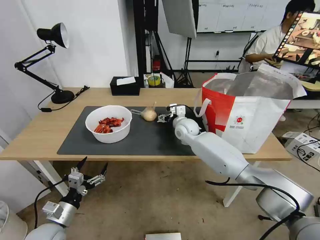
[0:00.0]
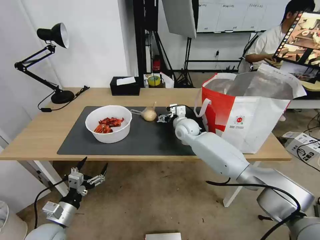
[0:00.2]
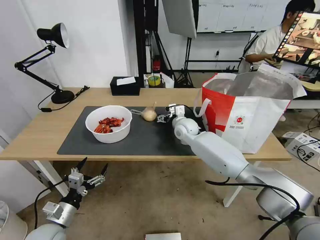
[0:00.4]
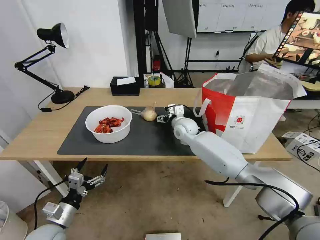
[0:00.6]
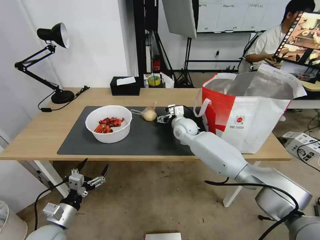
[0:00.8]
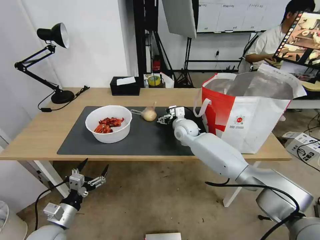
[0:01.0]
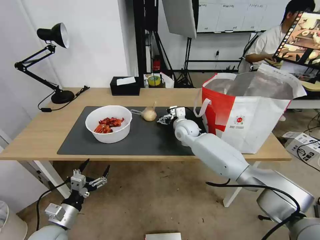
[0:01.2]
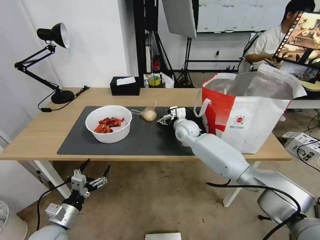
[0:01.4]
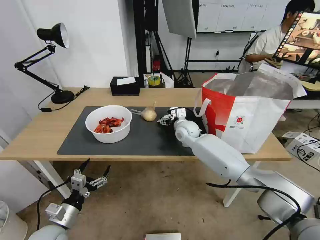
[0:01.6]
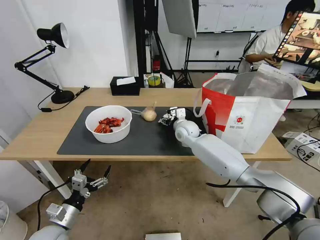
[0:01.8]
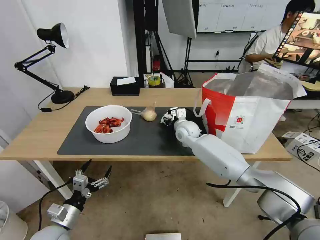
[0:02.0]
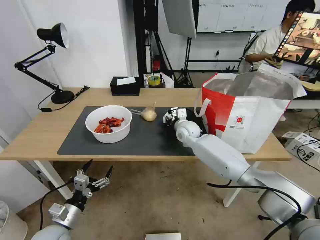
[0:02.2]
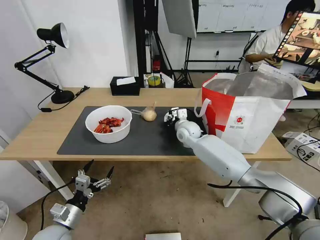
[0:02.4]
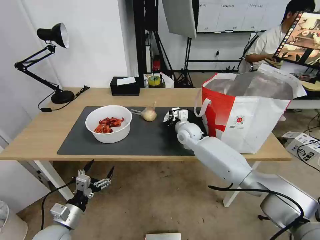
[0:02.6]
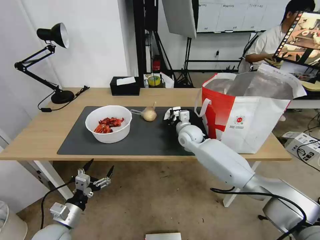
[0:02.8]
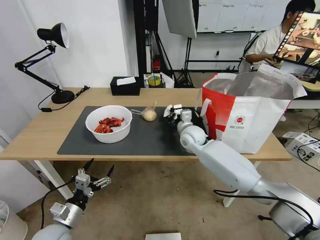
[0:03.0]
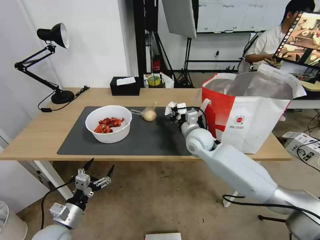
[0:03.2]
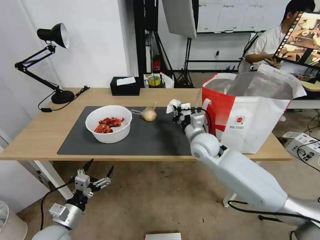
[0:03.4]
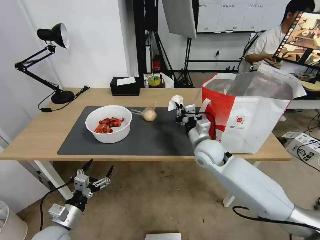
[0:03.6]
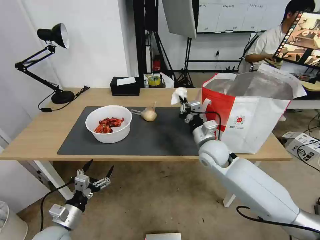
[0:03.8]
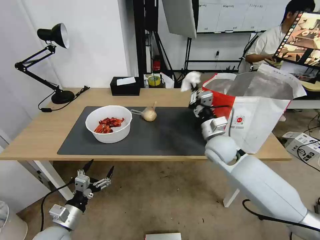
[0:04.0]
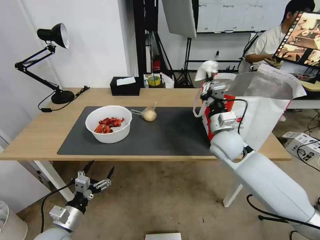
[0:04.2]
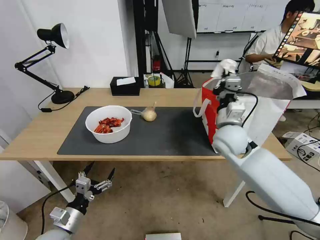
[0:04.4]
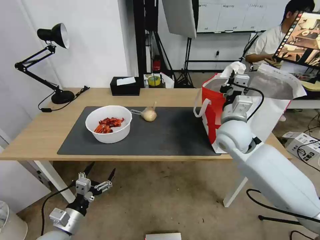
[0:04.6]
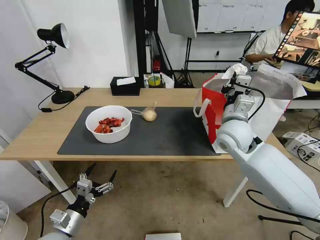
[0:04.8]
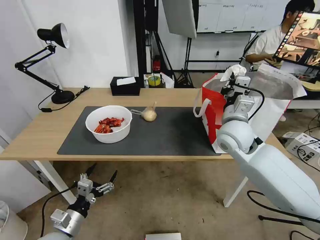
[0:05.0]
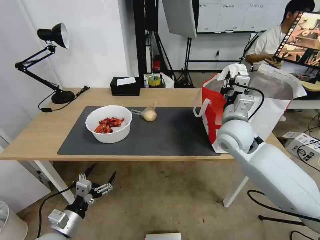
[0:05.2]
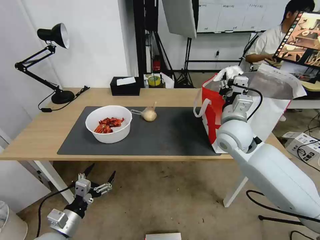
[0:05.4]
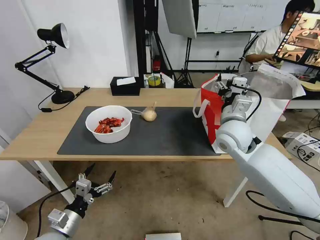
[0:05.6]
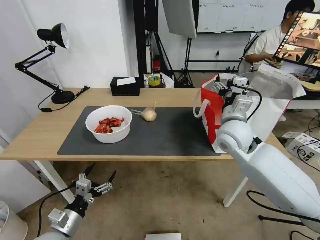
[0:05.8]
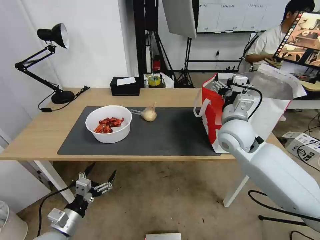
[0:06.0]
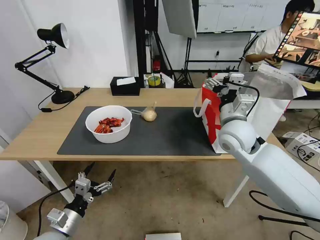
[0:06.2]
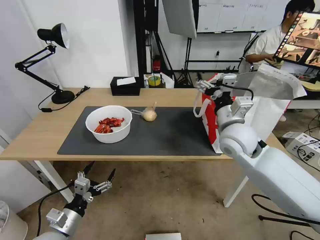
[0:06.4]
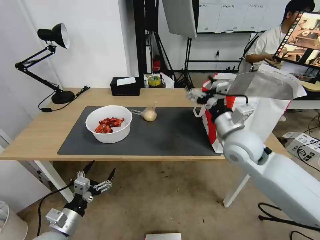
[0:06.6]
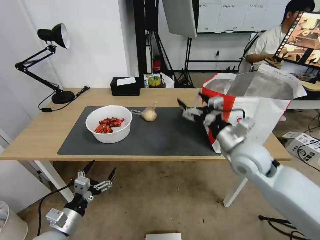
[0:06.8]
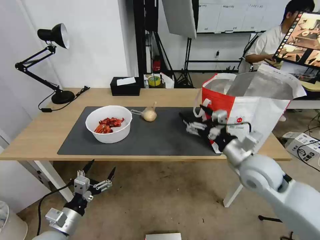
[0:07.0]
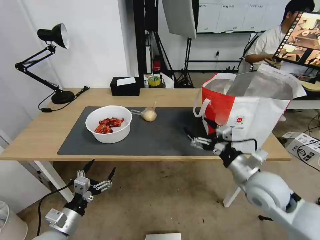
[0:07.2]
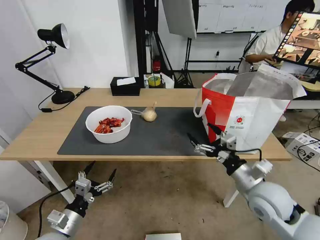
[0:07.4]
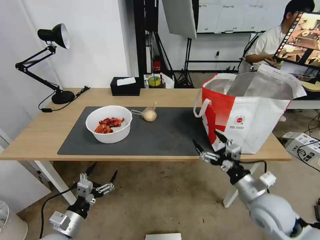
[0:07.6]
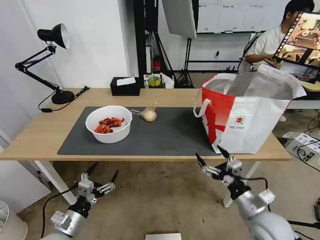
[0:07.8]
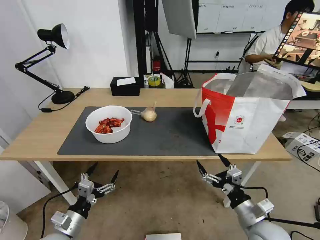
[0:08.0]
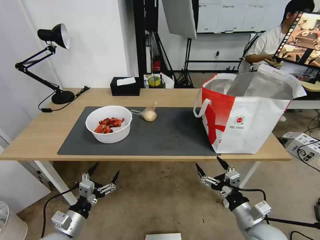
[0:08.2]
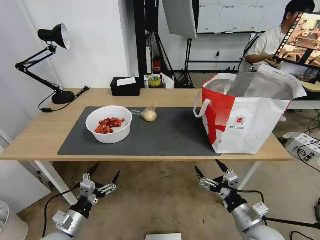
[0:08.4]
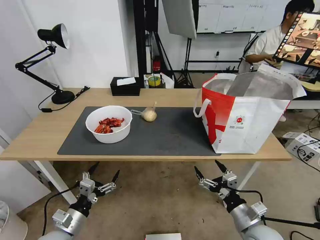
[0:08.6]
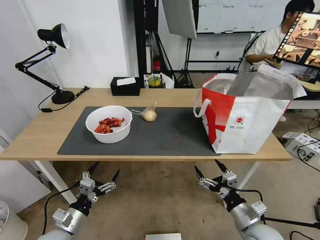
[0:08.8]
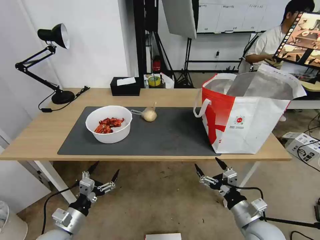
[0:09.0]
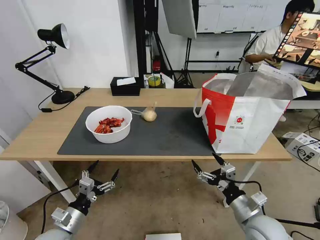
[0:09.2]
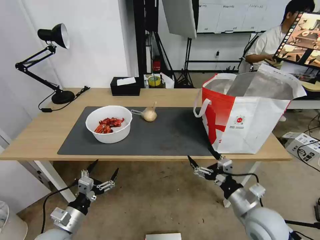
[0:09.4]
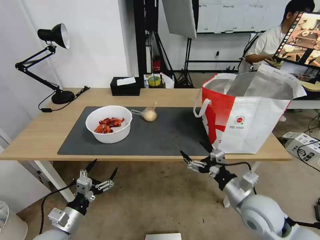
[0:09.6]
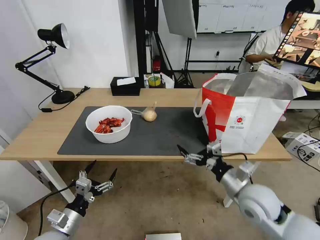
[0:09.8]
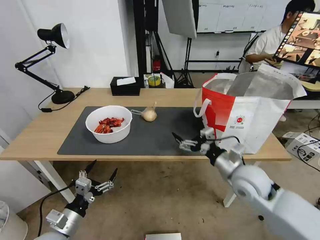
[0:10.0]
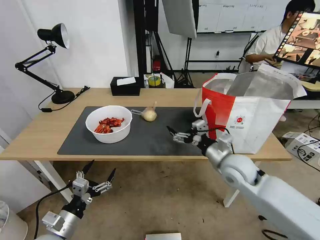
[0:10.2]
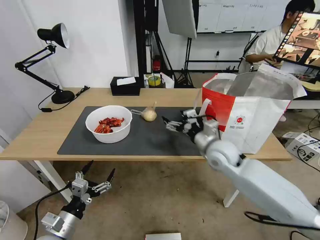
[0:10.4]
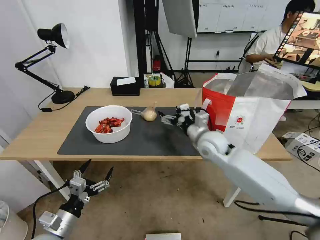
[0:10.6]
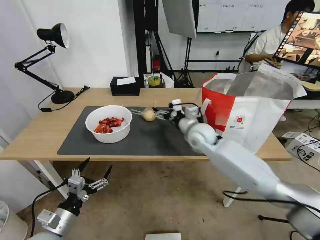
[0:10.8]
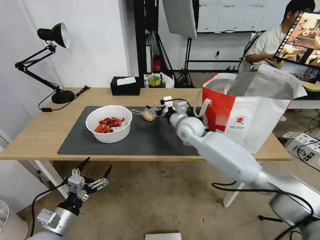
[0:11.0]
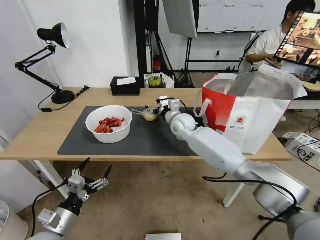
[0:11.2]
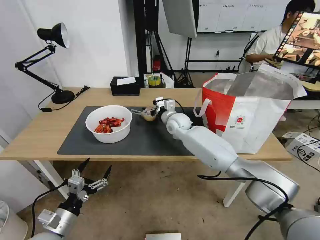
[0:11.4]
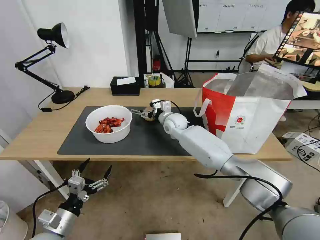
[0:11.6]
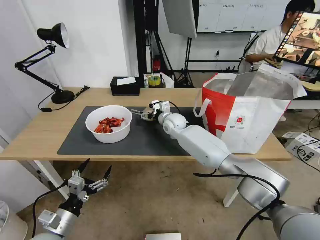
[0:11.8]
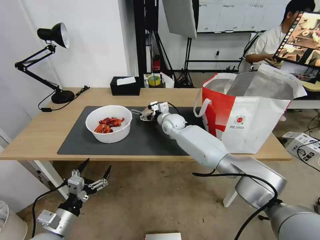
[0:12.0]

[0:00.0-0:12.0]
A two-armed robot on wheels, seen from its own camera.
Task of the whole recording: Pick up the trash from the table and place it into the takeout bag.
0:00.0 to 0:01.6: The two grippers keep their place.
0:01.6 to 0:03.0: The right gripper closes up.
0:03.0 to 0:04.4: The right gripper heads backward, upward and to the right, covering some 15 cm.
0:04.4 to 0:06.0: The right gripper opens.
0:06.0 to 0:07.6: The right gripper travels backward, downward and to the right by roughly 25 cm.
0:07.6 to 0:09.0: The right gripper is displaced downward by roughly 5 cm.
0:09.0 to 0:10.4: The right gripper travels forward, upward and to the left by approximately 25 cm.
0:10.4 to 0:12.0: The right gripper heads forward and to the left, covering some 25 cm.

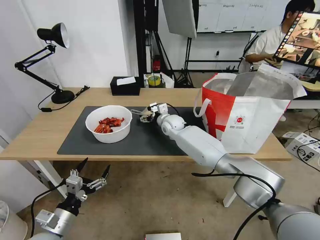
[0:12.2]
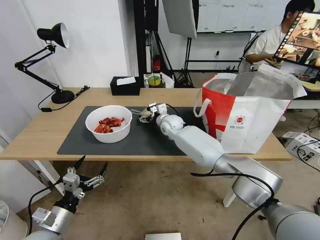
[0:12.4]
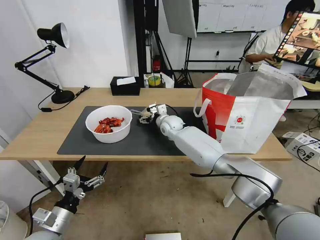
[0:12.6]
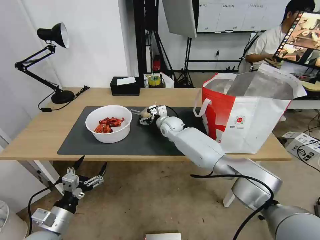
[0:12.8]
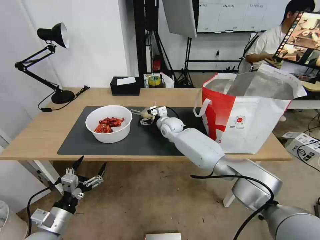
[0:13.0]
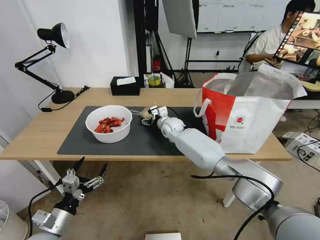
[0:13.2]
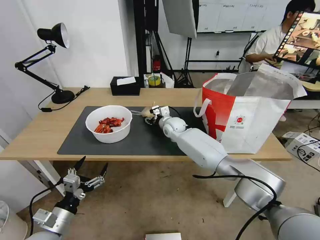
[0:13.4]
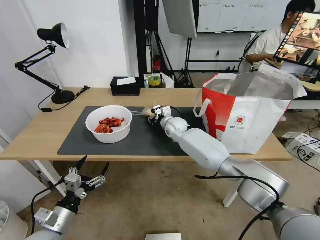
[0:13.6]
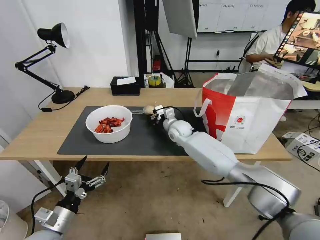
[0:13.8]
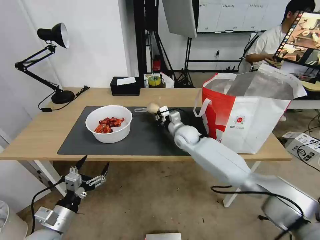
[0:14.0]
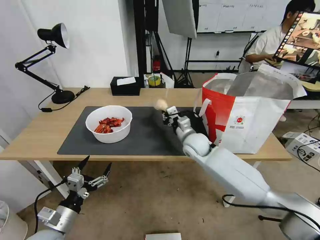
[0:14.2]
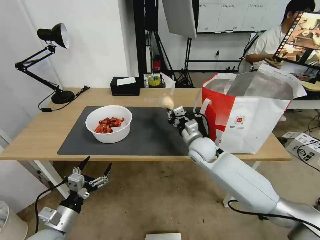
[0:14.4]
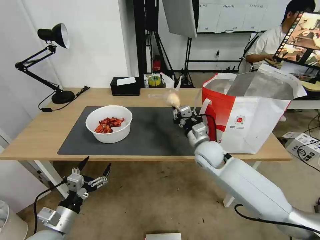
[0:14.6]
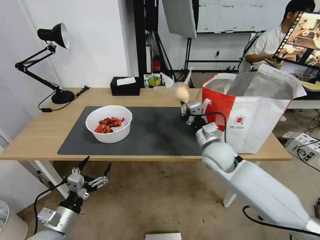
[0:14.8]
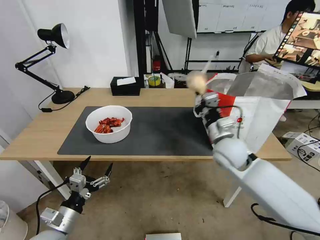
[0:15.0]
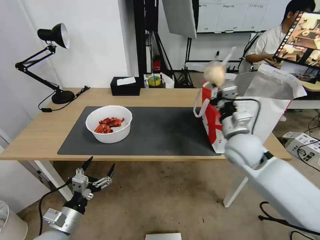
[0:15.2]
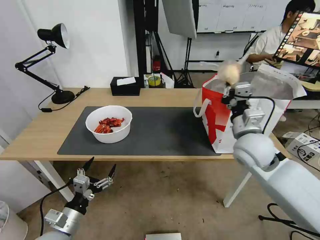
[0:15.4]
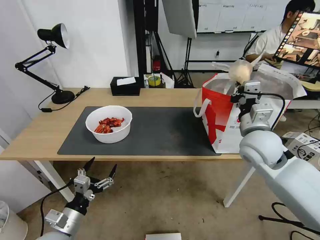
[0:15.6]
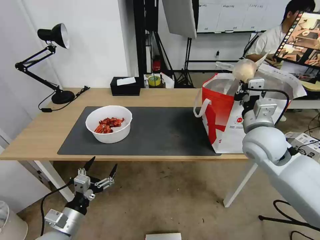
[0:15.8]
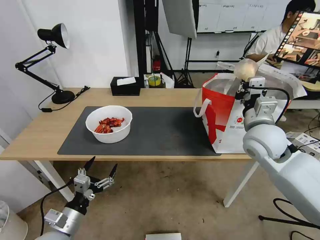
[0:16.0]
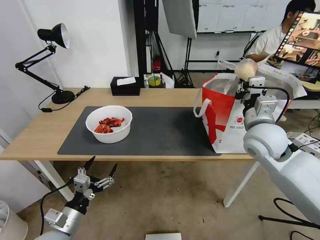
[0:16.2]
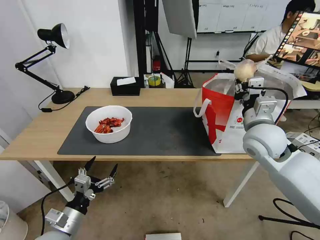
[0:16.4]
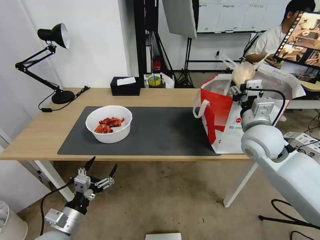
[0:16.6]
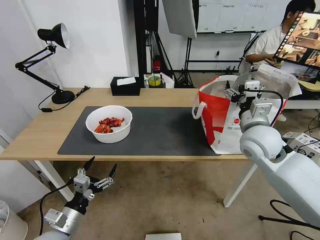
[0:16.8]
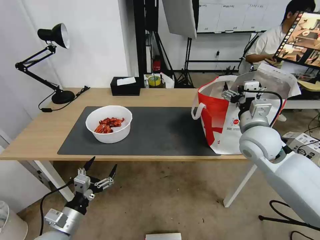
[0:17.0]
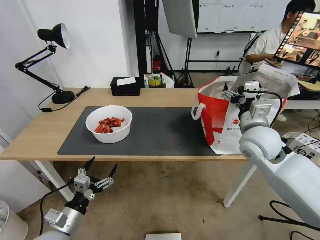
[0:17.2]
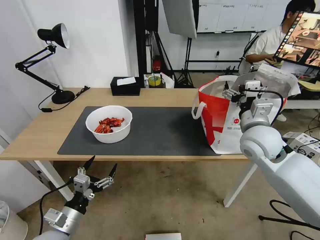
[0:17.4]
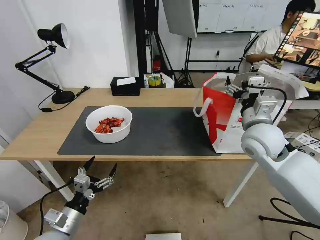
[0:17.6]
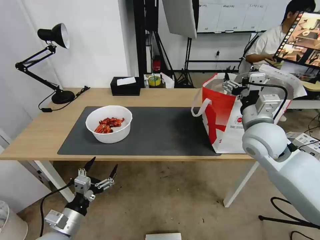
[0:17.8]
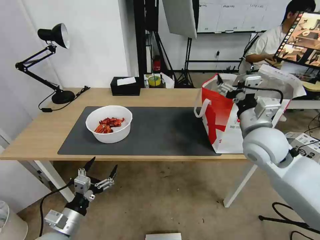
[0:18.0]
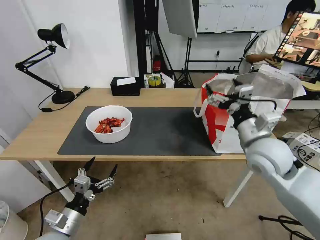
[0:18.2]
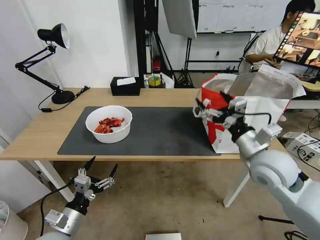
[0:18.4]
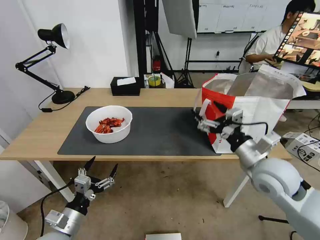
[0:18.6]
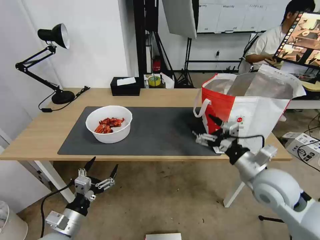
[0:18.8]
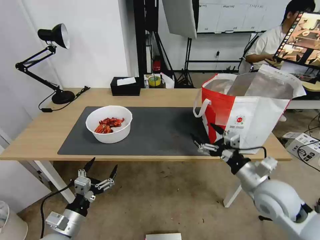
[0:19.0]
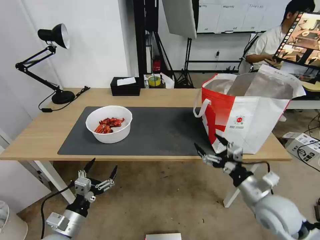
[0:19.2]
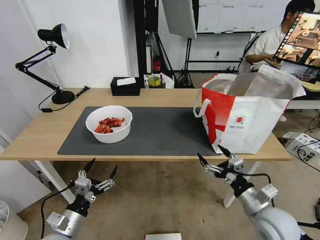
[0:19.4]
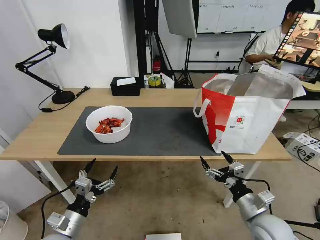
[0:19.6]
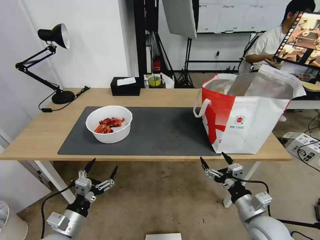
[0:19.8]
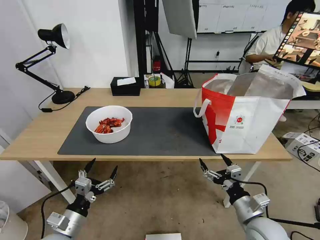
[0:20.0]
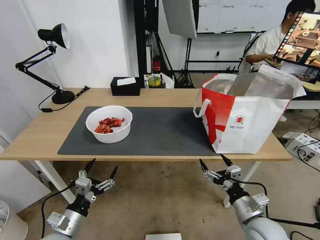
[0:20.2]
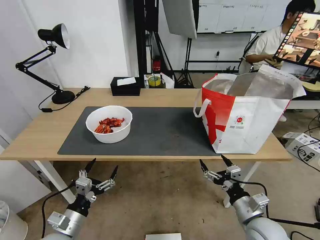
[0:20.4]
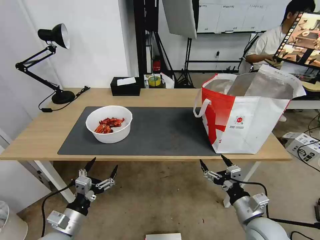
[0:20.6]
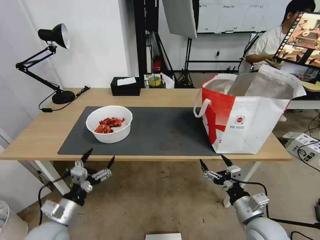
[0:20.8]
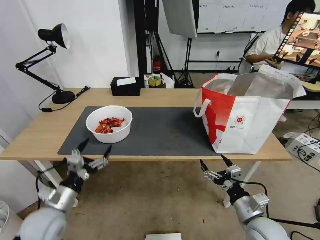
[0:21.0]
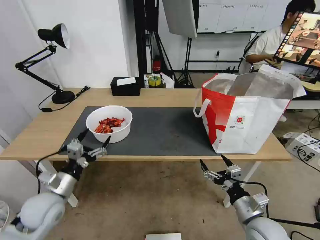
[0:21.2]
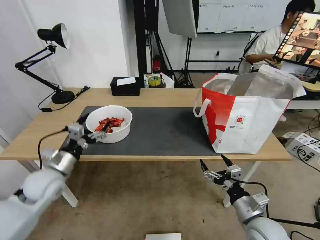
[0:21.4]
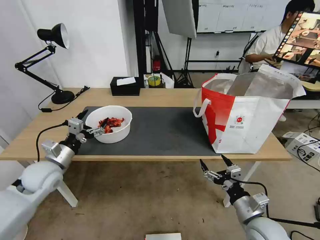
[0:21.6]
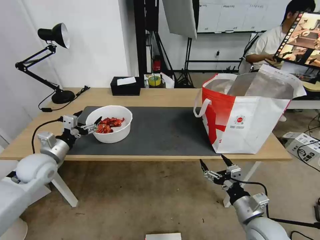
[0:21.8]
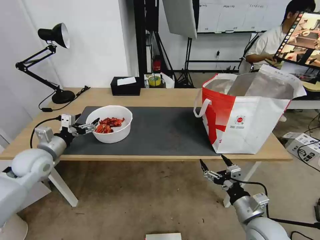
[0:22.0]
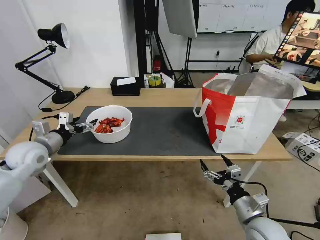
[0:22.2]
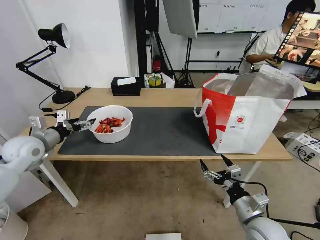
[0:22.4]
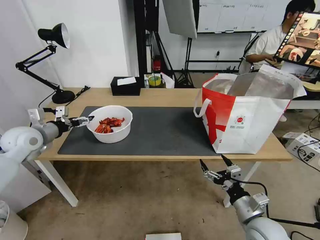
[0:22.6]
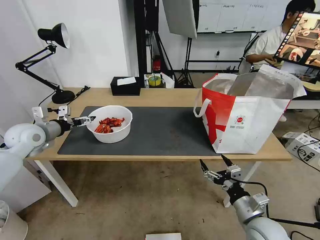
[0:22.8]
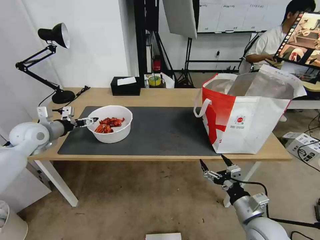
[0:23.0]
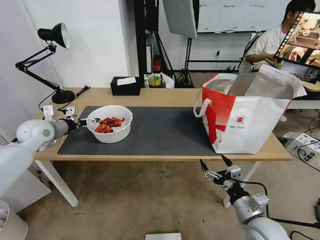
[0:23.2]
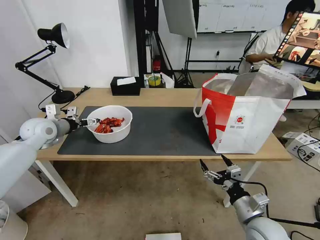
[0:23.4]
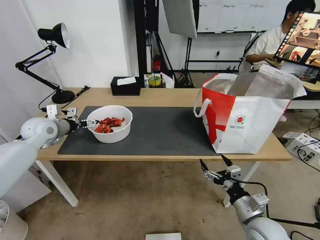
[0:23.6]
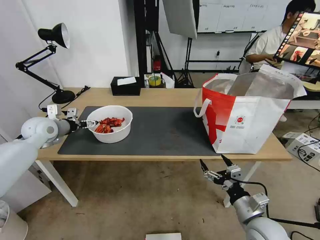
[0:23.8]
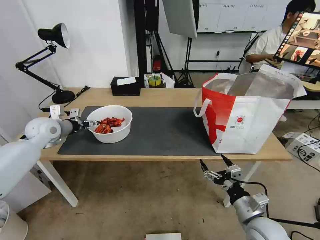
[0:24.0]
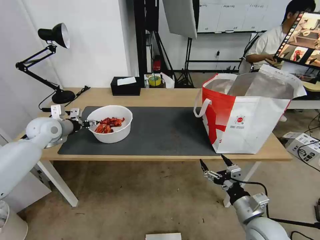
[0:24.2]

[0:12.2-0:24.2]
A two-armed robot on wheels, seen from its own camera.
Task of the whole recording: Pick up the trash from the table and place it into the takeout bag.
0:12.2 to 0:13.8: The right gripper closes up.
0:13.8 to 0:15.2: The right gripper moves backward, to the right and upward, roughly 25 cm.
0:15.2 to 0:16.6: The right gripper opens.
0:18.2 to 0:19.8: The right gripper shifts some 25 cm downward and backward.
0:19.8 to 0:21.2: The left gripper is displaced forward and upward by some 10 cm.
0:21.2 to 0:22.6: The left gripper shifts roughly 20 cm forward, upward and to the left.
0:22.6 to 0:24.2: The left gripper shifts roughly 5 cm forward, and closes its fingers.
